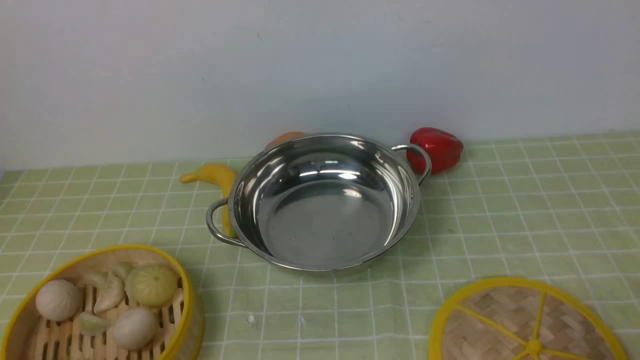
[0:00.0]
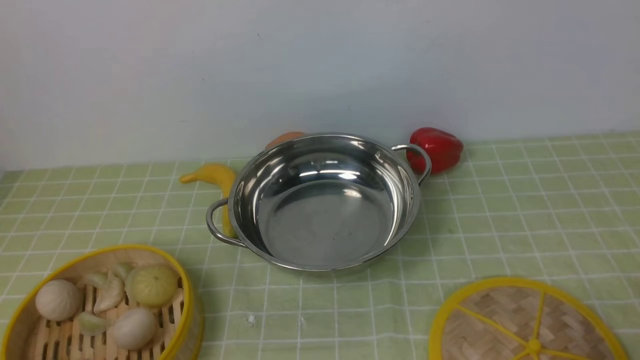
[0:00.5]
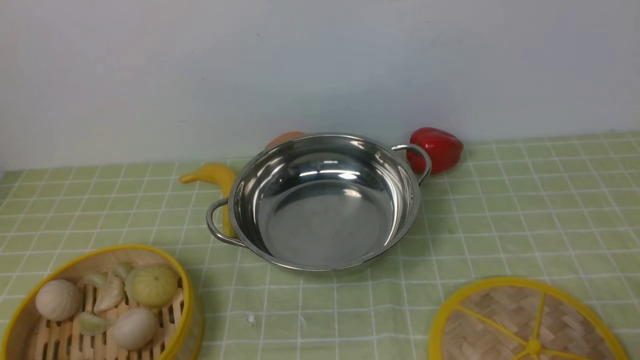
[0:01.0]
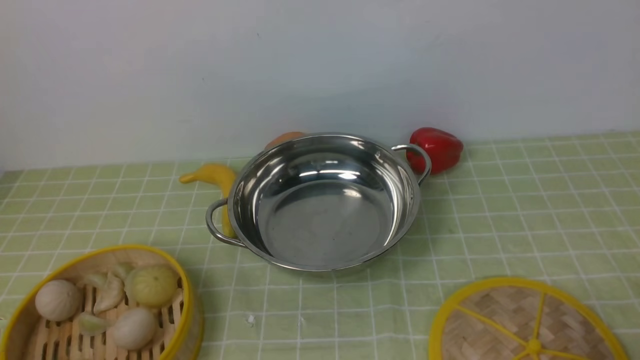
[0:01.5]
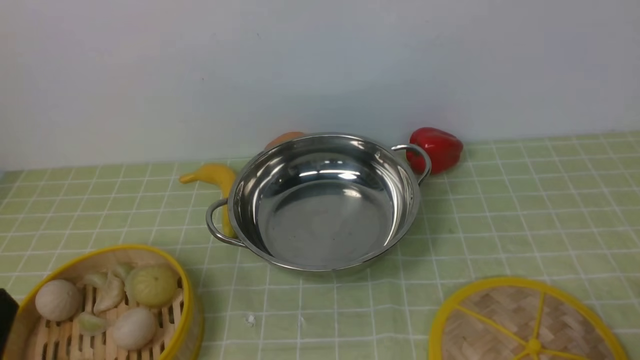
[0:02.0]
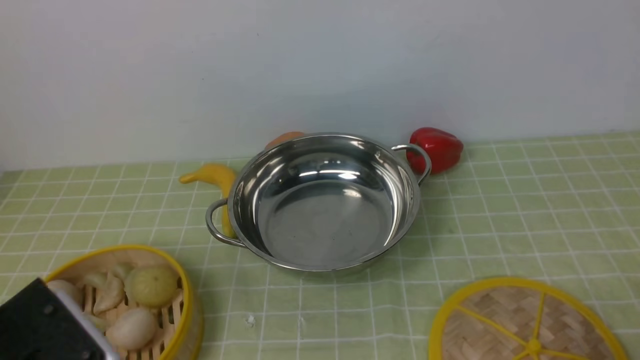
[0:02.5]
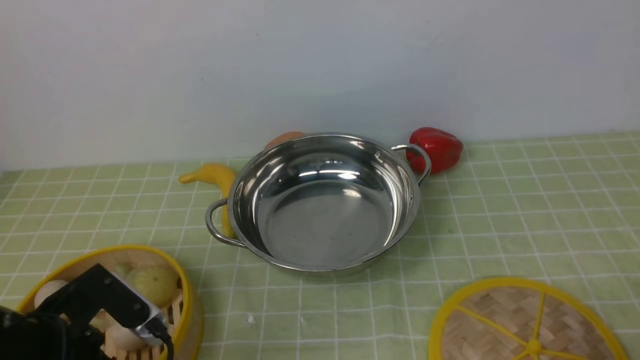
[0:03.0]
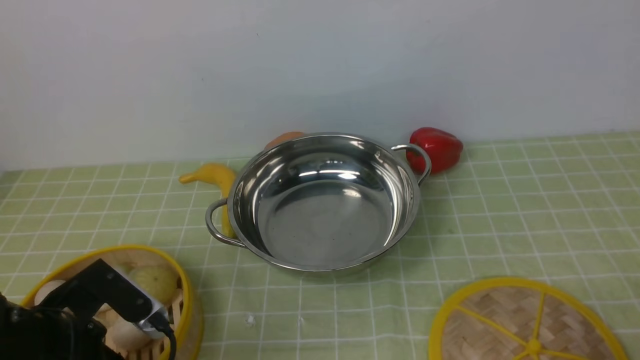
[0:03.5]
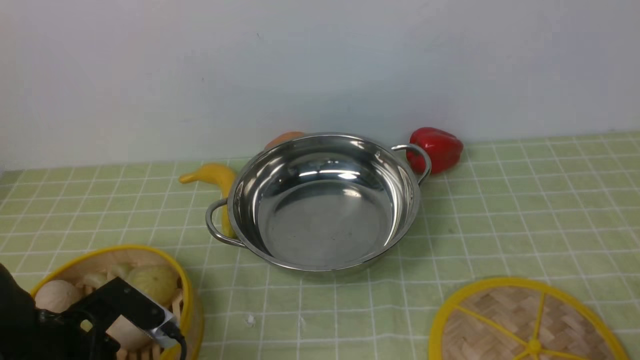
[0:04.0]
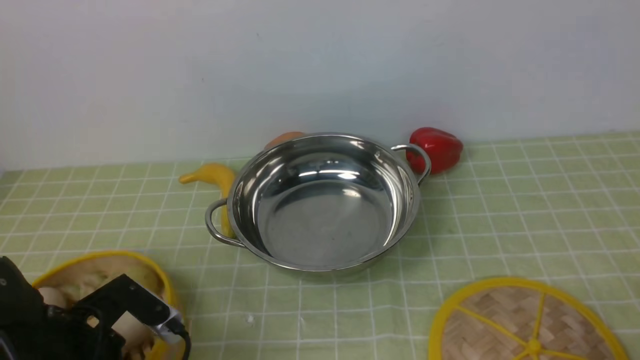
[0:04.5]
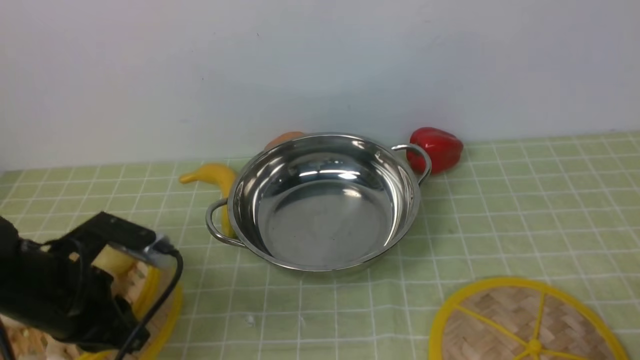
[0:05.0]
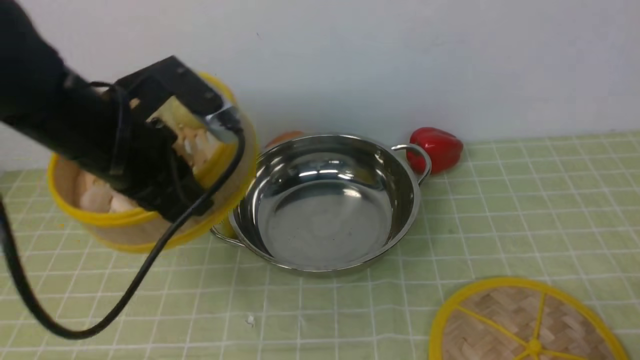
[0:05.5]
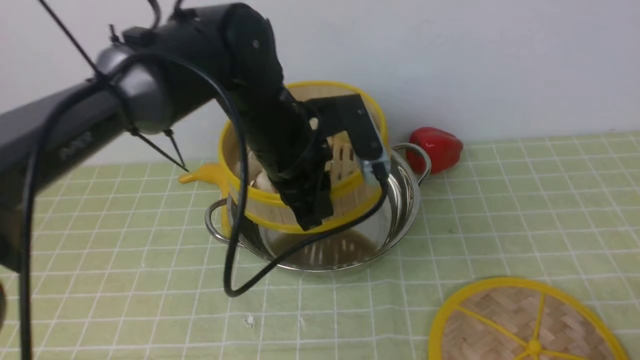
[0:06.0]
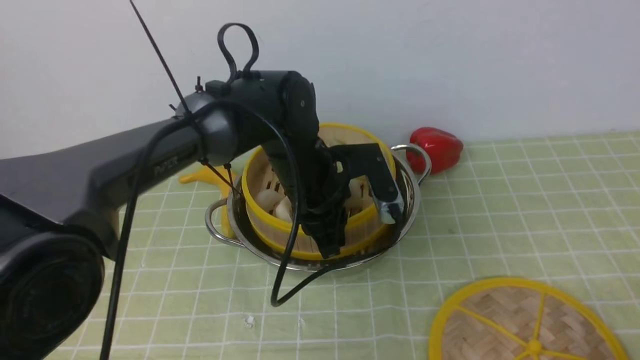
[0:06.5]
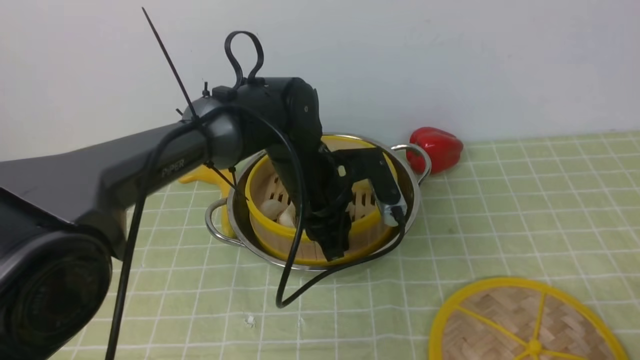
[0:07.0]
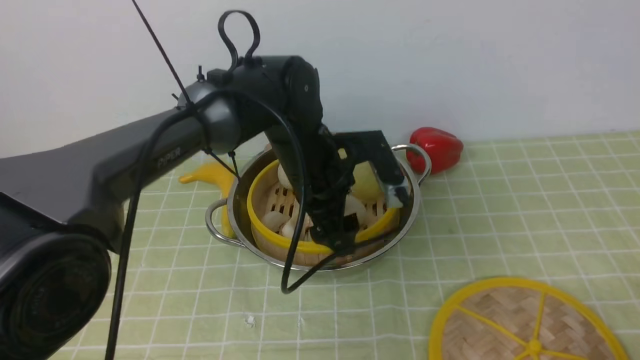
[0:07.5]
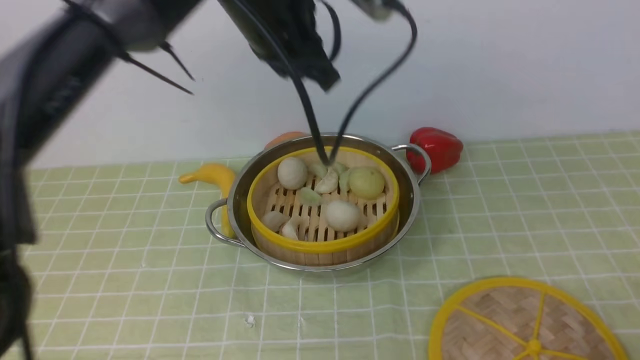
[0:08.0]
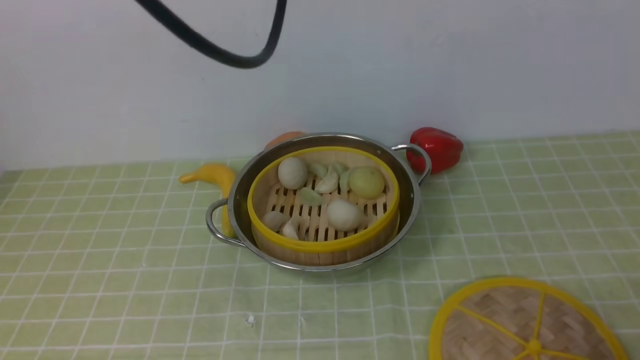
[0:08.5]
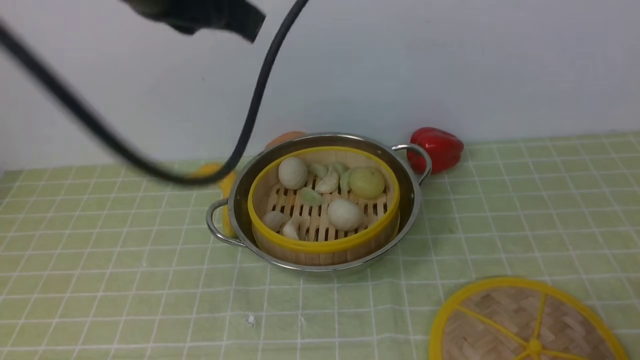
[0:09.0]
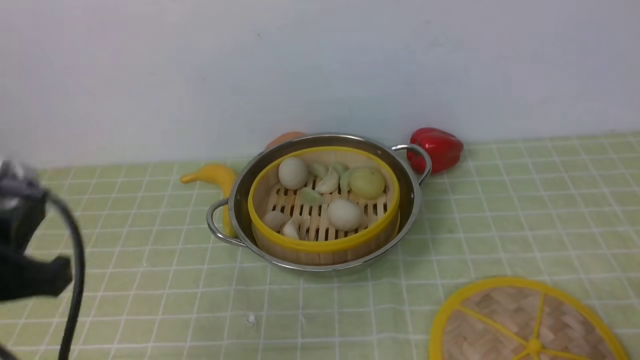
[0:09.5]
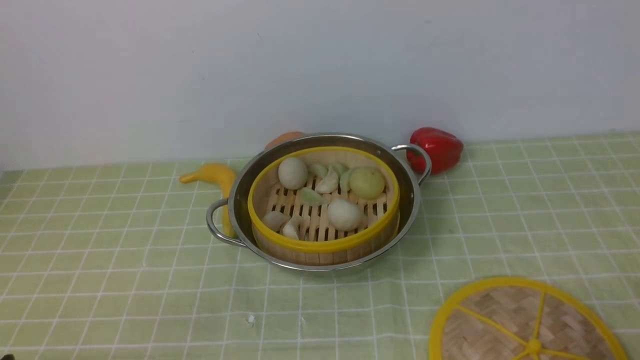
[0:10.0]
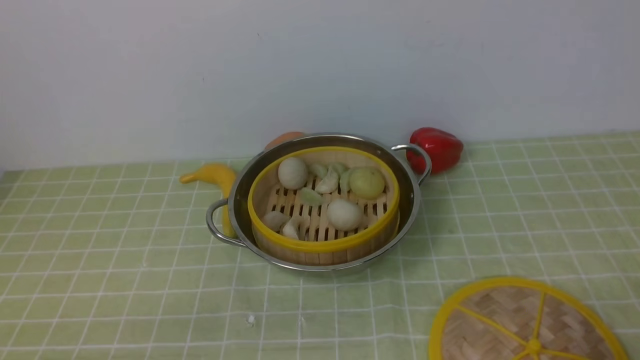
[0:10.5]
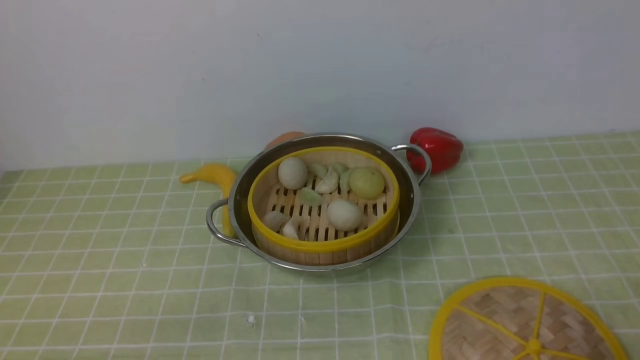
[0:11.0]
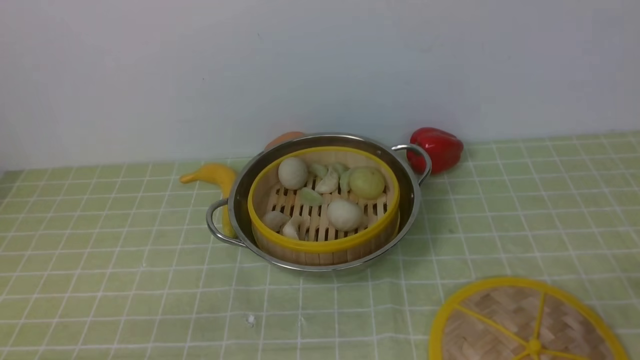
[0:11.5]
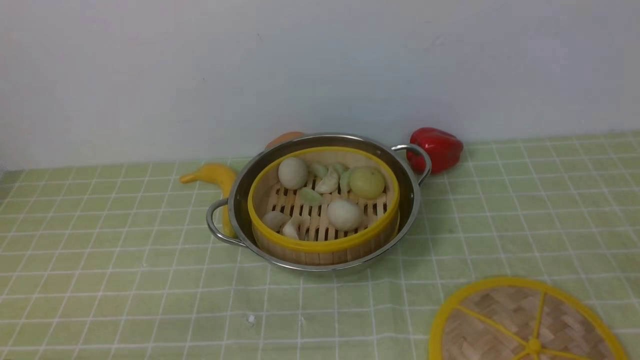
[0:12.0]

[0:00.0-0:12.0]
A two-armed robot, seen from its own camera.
Task of the whole recording: place the steamer in the pot on the green tablecloth, and put the lid on the steamer.
Step, 0:00.0 to 0:05.0: use the left arm to lift the steamer closest to it.
Step, 0:05.5 to 0:08.5: use the left arm to put the steamer into the iron steamer pot in the middle.
0:02.0 to 0:04.0: The left gripper moves forward and downward, roughly 15 cm.
0:04.0 to 0:06.0: The left gripper shifts about 30 cm to the right, forward and upward, and closes.
0:06.0 to 0:08.0: The left gripper goes approximately 15 cm upward, and opens, then closes again.
0:08.0 to 0:10.0: The left gripper is displaced backward, downward and to the left by some 40 cm.

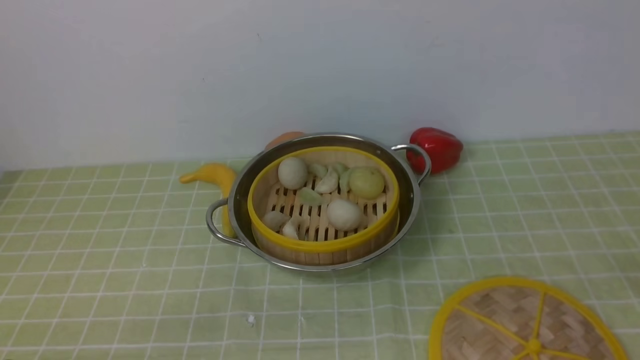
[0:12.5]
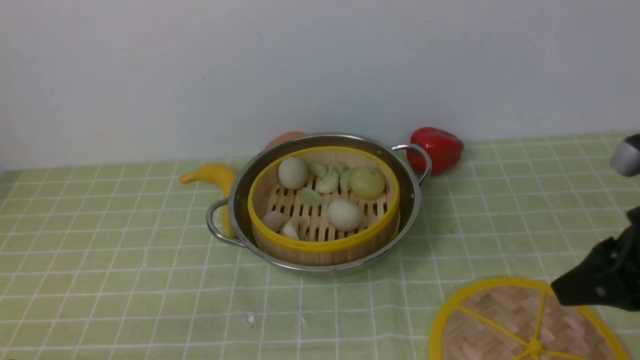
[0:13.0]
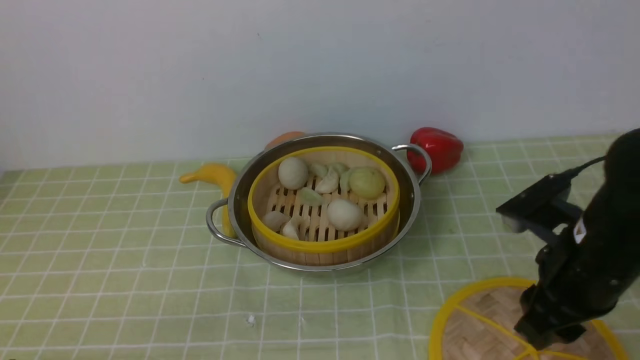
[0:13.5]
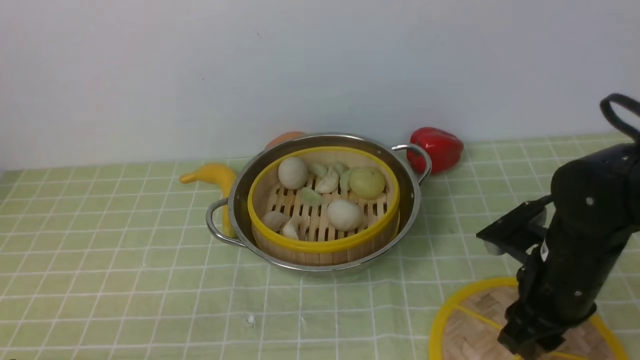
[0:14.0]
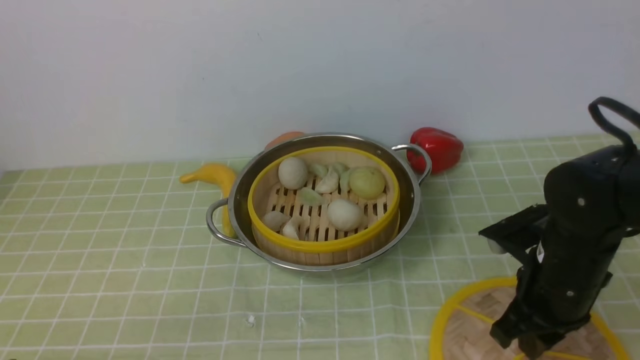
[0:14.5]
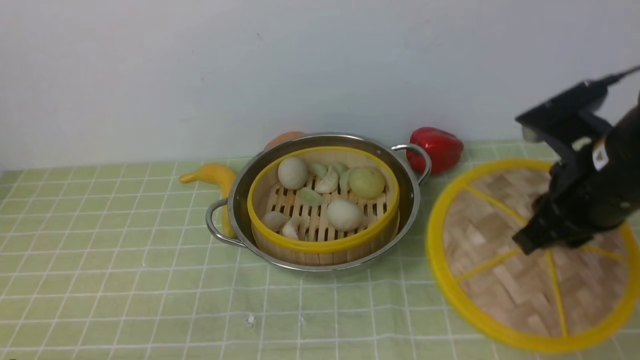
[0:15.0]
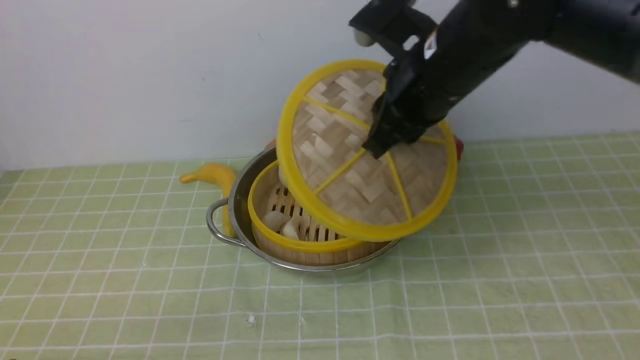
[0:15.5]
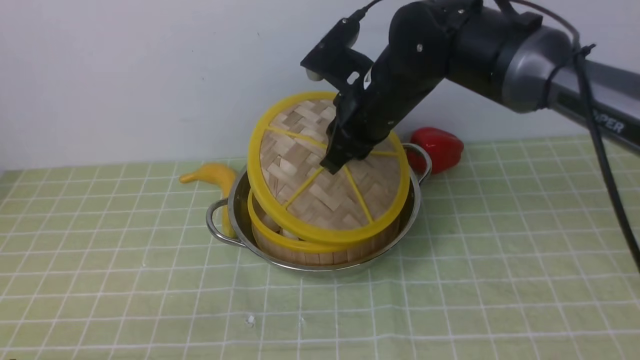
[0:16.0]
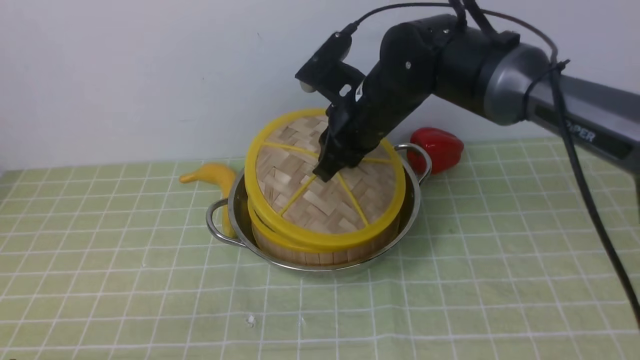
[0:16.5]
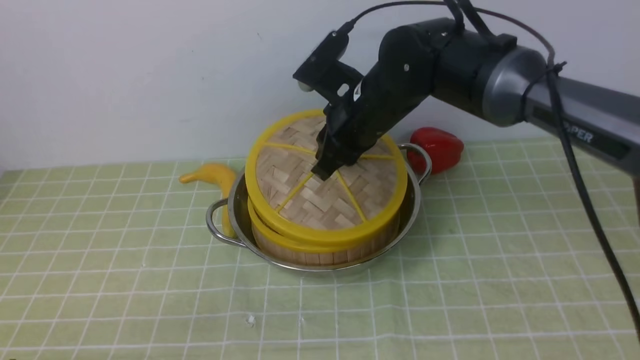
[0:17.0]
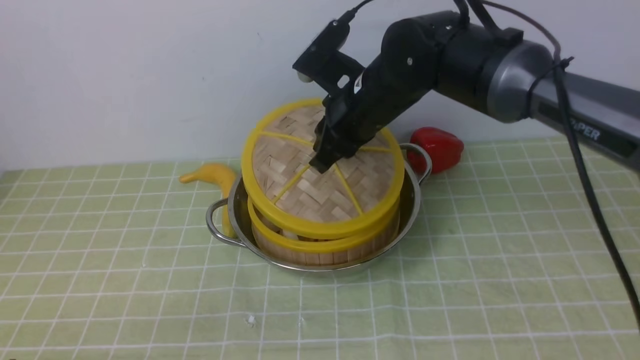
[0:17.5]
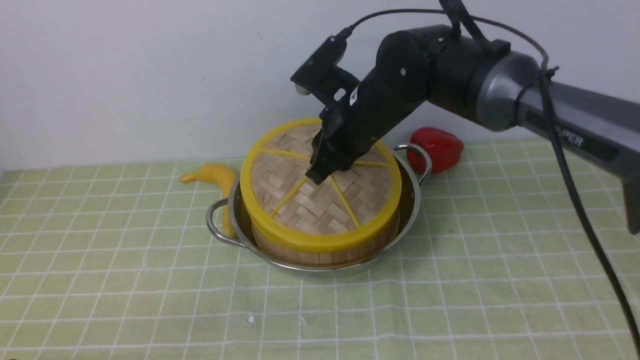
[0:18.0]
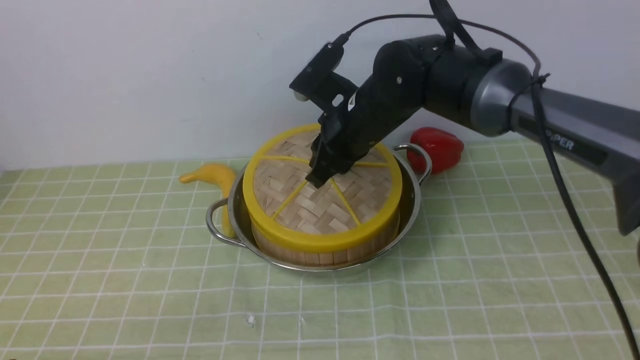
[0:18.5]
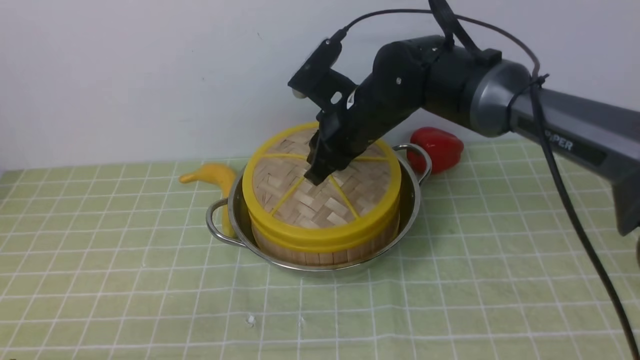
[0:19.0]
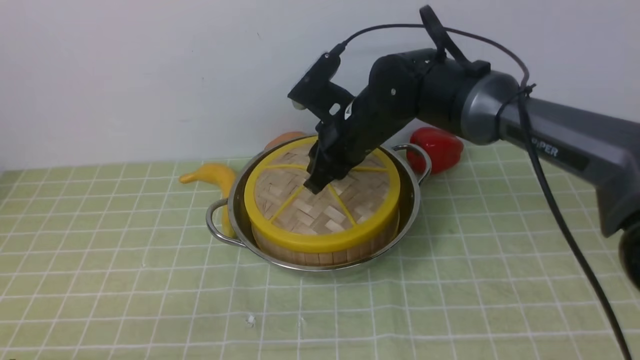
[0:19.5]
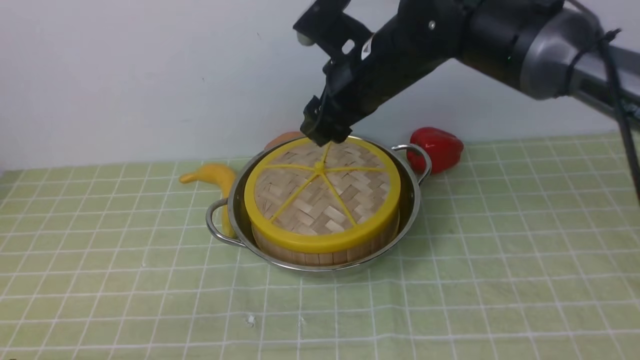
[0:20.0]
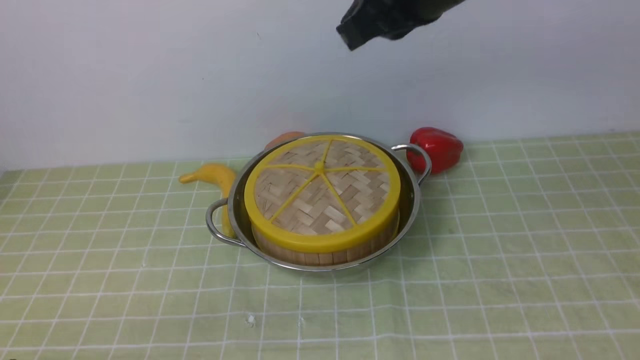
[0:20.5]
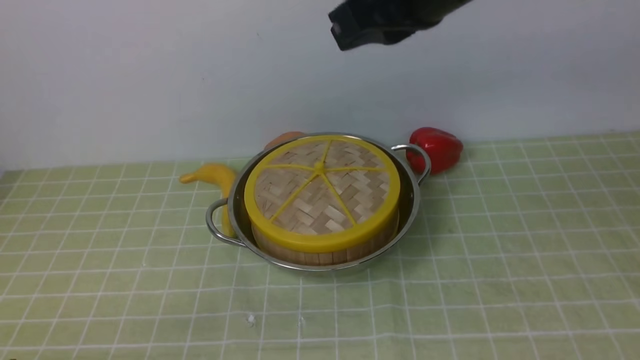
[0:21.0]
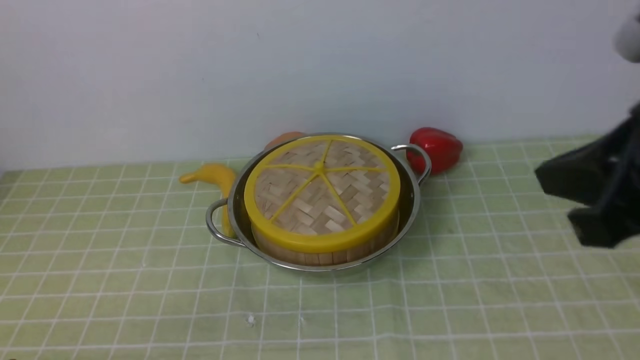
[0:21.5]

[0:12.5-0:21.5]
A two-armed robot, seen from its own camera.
Task of the whole recording: place the steamer in the pot on the green tablecloth, and put the lid on the steamer.
Step, 0:12.5 to 0:15.0: use the right arm to lift the lid of the steamer.
Step, 0:15.5 to 0:20.0: use the right arm to place the steamer lid on the steamer.
0:12.5 to 0:14.5: The right gripper moves forward, downward and to the left, approximately 25 cm.
0:14.5 to 0:17.0: The right gripper heads to the left, forward and upward, covering some 25 cm.
0:17.0 to 0:19.5: The grippers make only small movements.
0:19.5 to 0:21.5: The right gripper heads backward, to the right and upward, covering roughly 35 cm, and closes its fingers.
